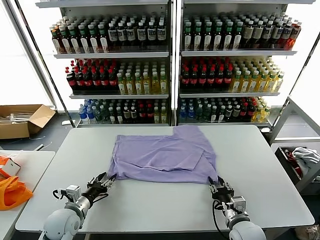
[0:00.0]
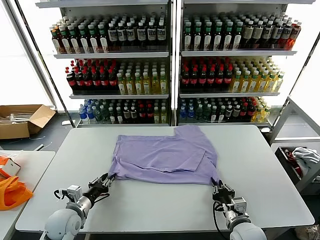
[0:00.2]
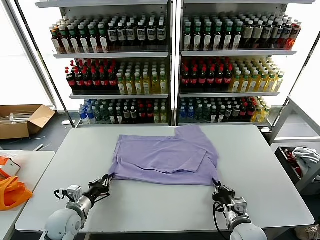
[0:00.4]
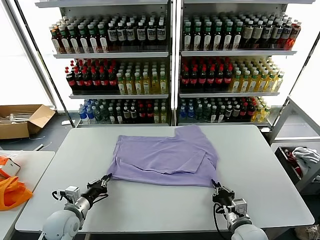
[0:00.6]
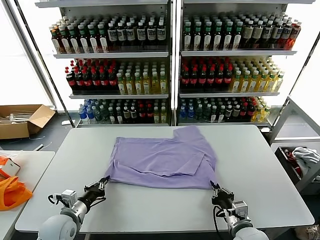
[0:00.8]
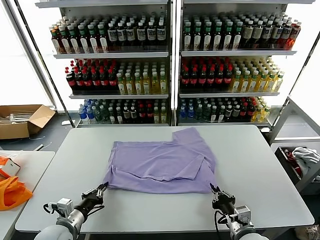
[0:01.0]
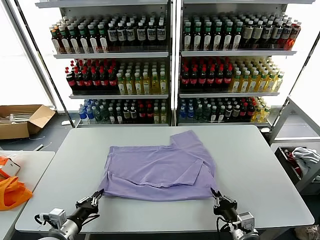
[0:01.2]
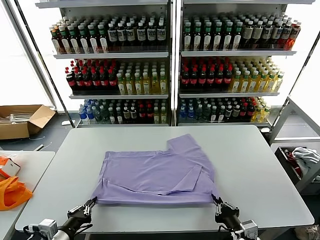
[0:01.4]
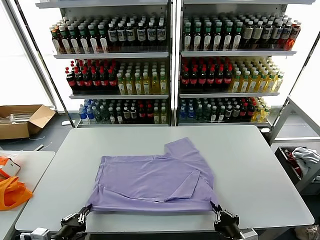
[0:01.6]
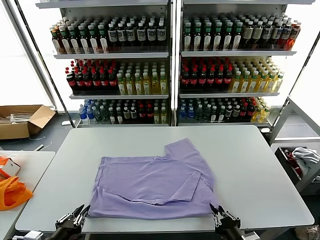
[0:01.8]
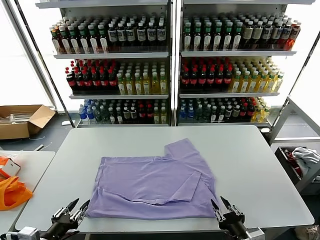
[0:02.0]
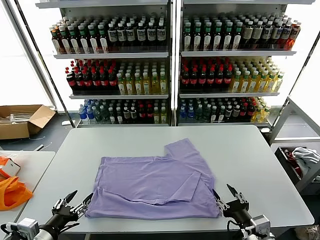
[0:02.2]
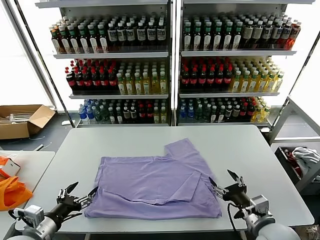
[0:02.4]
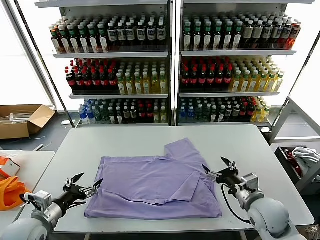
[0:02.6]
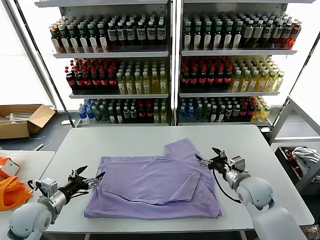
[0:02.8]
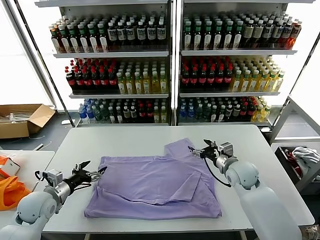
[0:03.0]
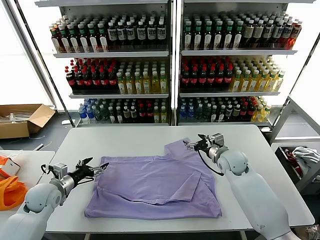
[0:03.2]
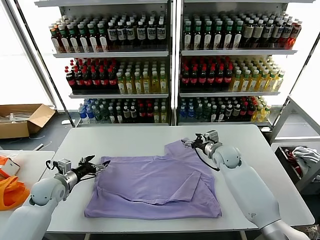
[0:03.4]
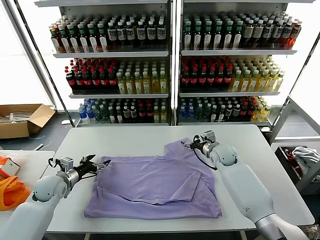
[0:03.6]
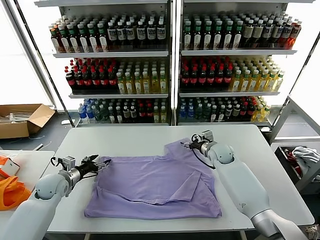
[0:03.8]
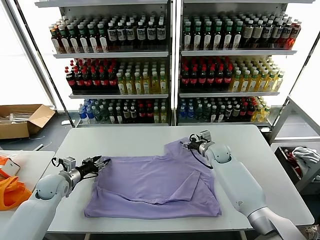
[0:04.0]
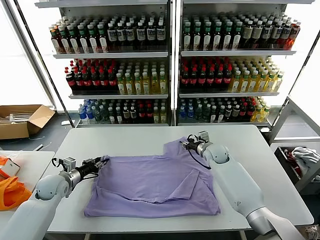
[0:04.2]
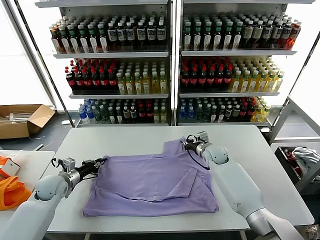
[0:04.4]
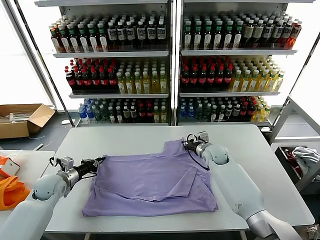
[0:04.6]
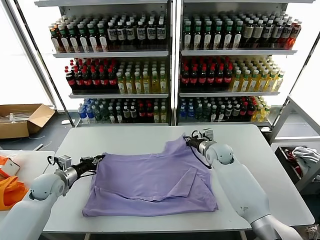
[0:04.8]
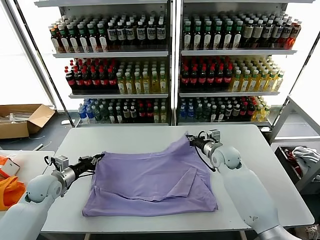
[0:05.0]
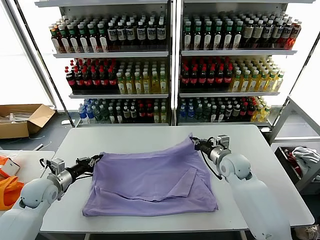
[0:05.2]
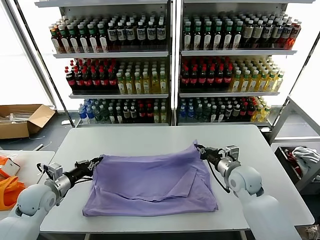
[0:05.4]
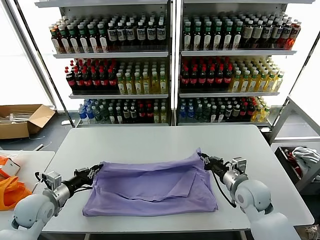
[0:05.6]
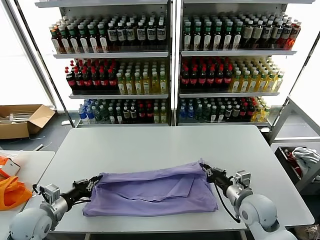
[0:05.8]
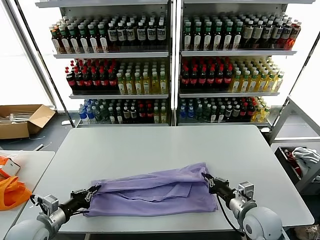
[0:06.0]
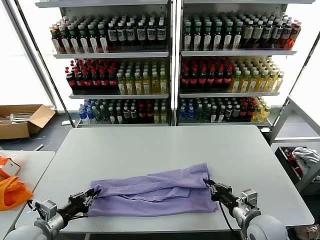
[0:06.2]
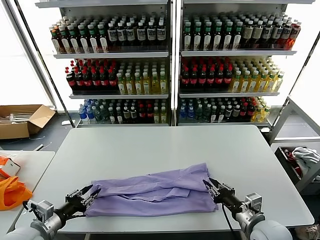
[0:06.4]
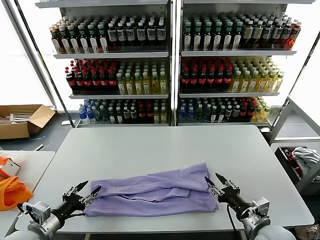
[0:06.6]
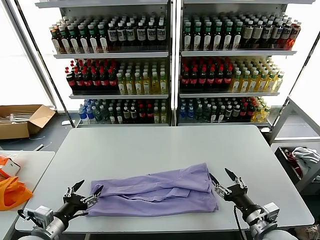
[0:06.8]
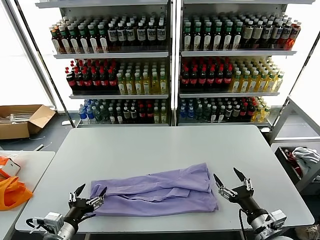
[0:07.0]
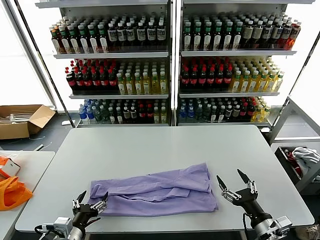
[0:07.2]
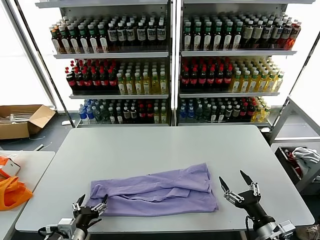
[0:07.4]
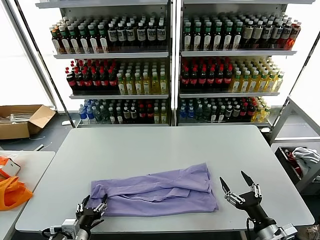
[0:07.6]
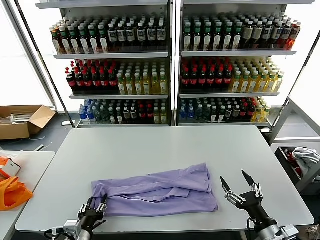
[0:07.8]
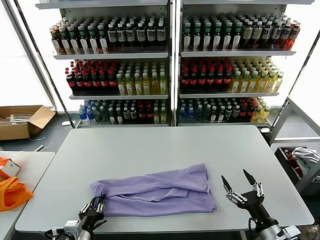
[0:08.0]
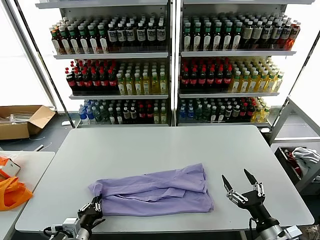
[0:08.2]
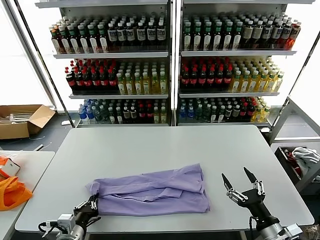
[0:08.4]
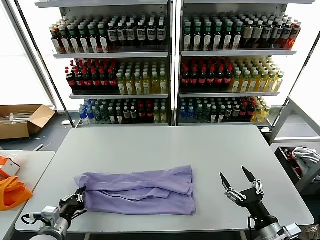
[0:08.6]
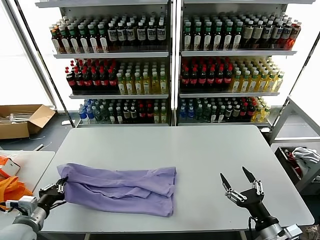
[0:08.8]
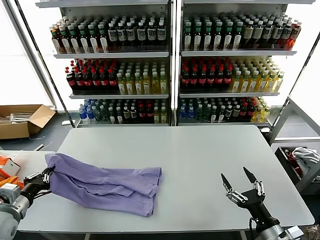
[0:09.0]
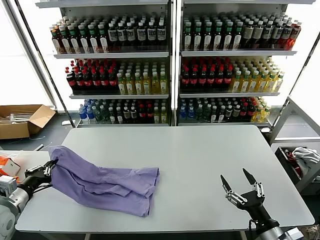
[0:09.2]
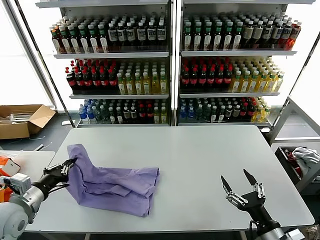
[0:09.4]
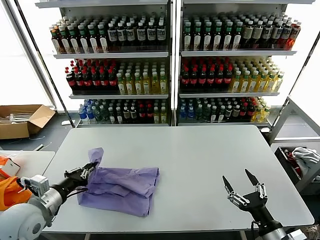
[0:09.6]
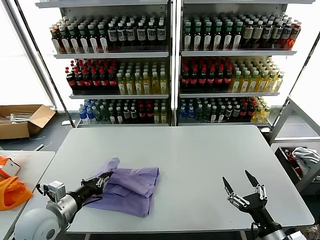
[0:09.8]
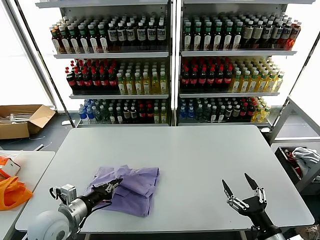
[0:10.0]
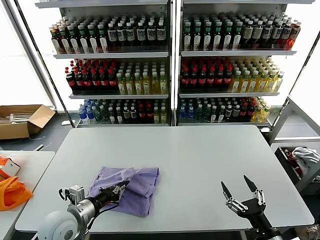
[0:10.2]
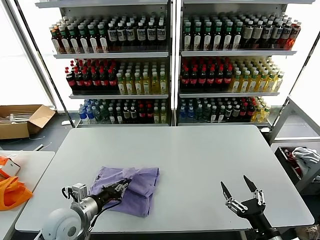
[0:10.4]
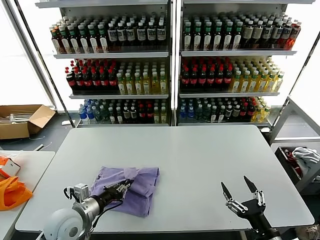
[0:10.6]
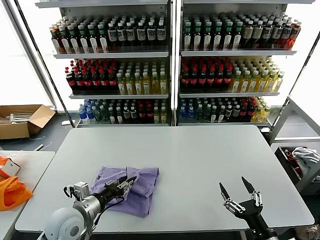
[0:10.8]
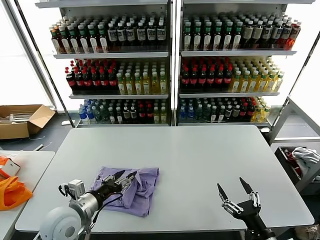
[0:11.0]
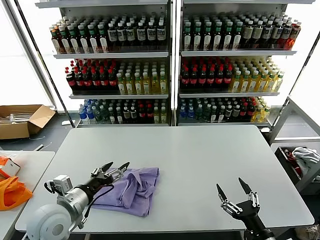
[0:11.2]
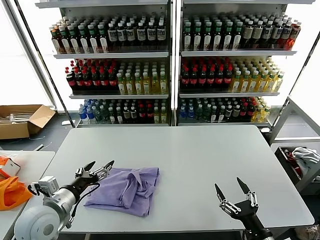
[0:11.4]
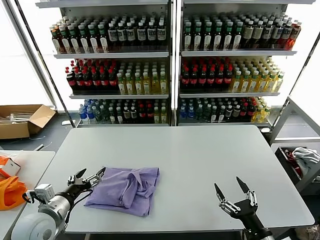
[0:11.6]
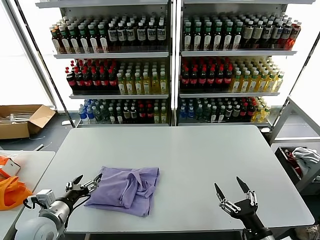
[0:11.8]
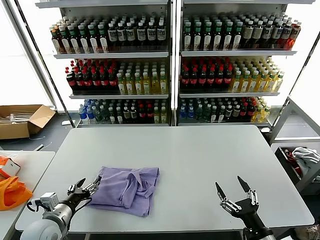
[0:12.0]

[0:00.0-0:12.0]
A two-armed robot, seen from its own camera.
Task of the whole recording: fold and organize the clothes.
Step, 0:00.0 to 0:02.0: Drag the clothes downward with both gripper.
Step, 0:02.2 to 0:04.4: use both grippers simultaneously to clamp the upper edge of the clothing fabric.
Step, 0:04.6 to 0:06.4: use both grippers to drag the upper edge of the fabric backward and fold it over the lower edge.
Step, 0:06.6 to 0:08.2: use the left gripper to clamp the left edge of the fabric.
Step, 0:08.4 to 0:11.0: use the left gripper to drag the left edge of the fabric to the left and folds it over the right edge.
0:00.0 to 0:01.6: The left gripper heads backward, covering about 15 cm, and closes up; the right gripper goes roughly 15 cm backward and upward.
0:01.6 to 0:03.0: The right gripper goes approximately 30 cm forward, and opens its fingers. Meanwhile the left gripper goes approximately 20 cm forward, and opens its fingers.
0:03.0 to 0:04.4: Both grippers travel together forward, some 10 cm. The left gripper closes up. Meanwhile the right gripper closes up.
0:04.4 to 0:06.0: The left gripper travels backward by roughly 15 cm, while the right gripper shifts roughly 30 cm backward.
0:06.0 to 0:07.6: The left gripper heads to the right and backward, covering approximately 15 cm, and opens, while the right gripper is displaced backward by about 10 cm, and opens up.
0:07.6 to 0:09.0: The left gripper heads to the left and upward, covering about 20 cm, and closes its fingers.
0:09.0 to 0:10.4: The left gripper is displaced to the right by some 15 cm.
0:10.4 to 0:12.0: The left gripper goes roughly 5 cm to the left, goes upward and returns, roughly 5 cm each way, and opens its fingers.

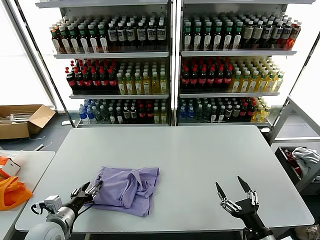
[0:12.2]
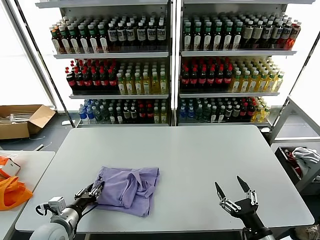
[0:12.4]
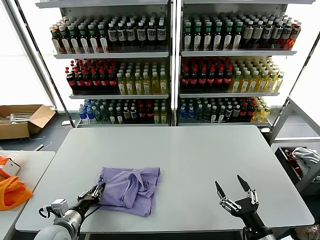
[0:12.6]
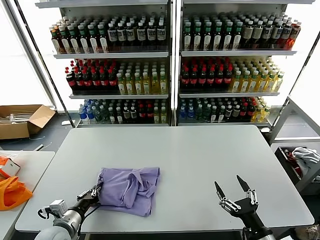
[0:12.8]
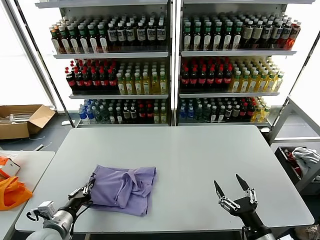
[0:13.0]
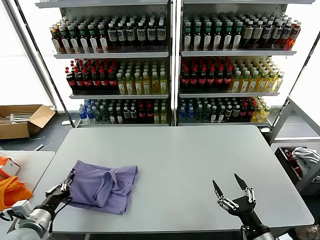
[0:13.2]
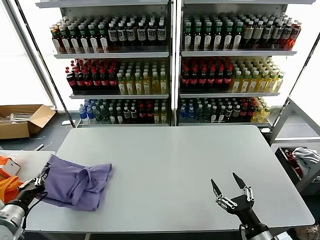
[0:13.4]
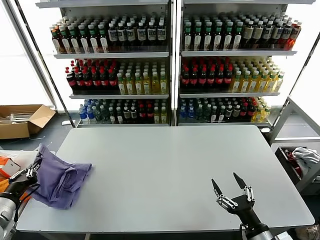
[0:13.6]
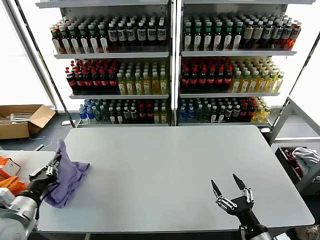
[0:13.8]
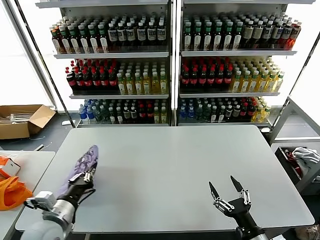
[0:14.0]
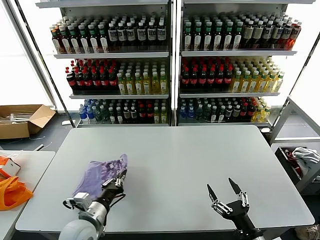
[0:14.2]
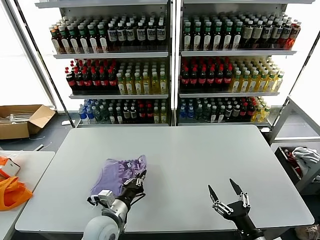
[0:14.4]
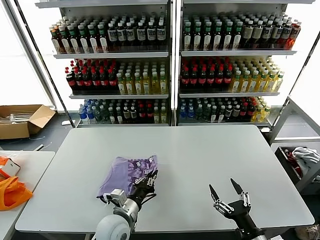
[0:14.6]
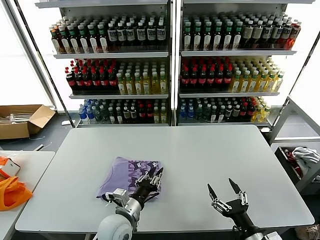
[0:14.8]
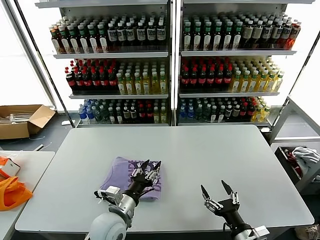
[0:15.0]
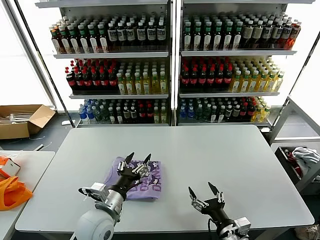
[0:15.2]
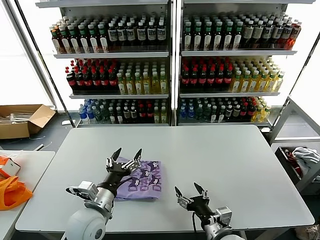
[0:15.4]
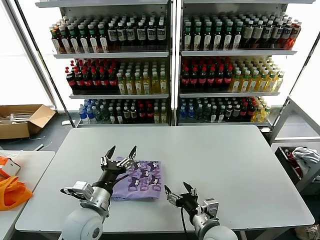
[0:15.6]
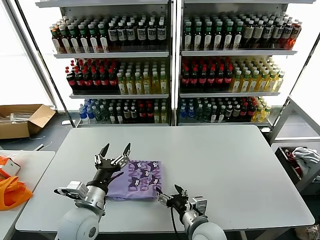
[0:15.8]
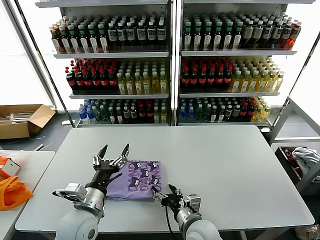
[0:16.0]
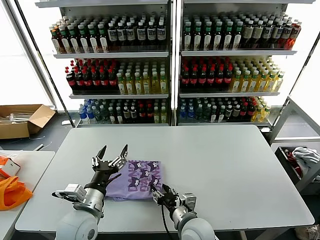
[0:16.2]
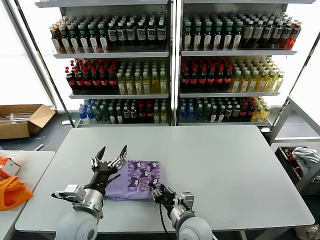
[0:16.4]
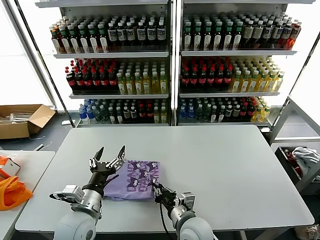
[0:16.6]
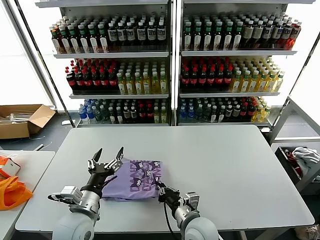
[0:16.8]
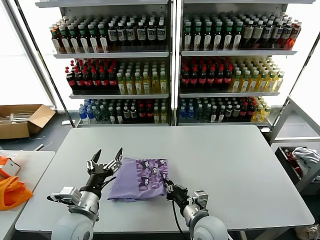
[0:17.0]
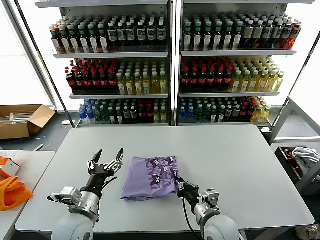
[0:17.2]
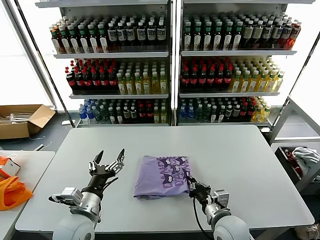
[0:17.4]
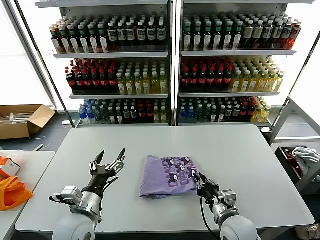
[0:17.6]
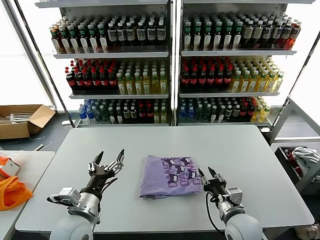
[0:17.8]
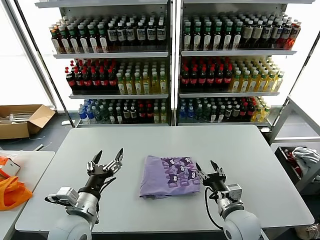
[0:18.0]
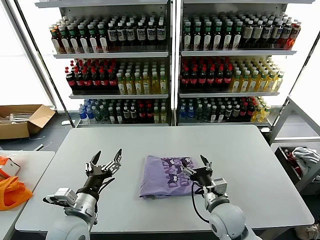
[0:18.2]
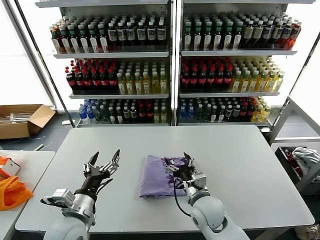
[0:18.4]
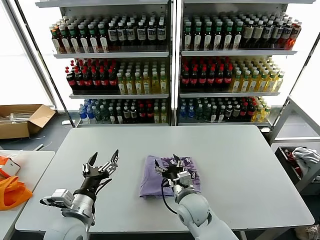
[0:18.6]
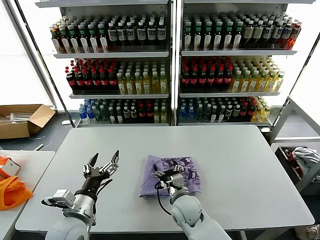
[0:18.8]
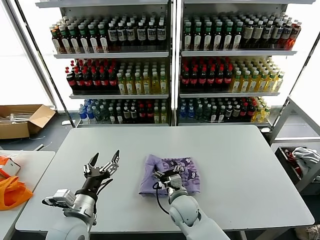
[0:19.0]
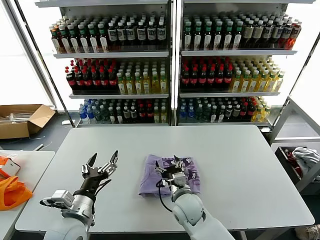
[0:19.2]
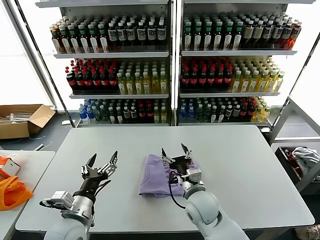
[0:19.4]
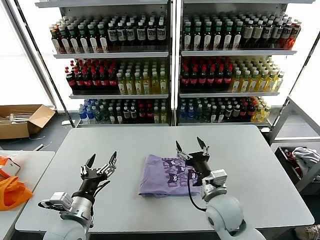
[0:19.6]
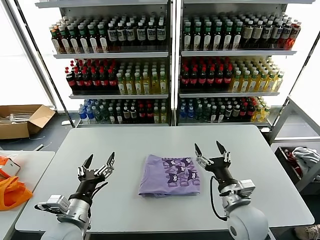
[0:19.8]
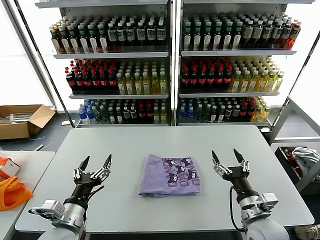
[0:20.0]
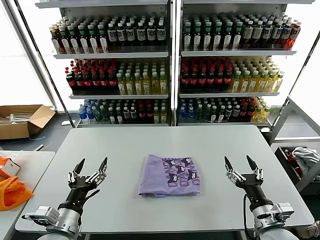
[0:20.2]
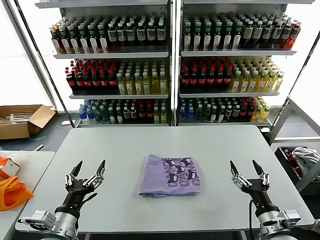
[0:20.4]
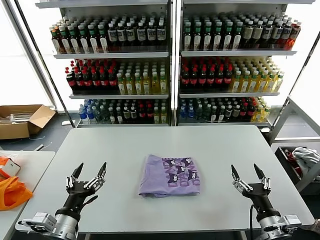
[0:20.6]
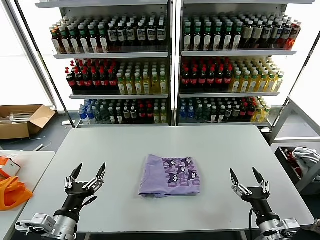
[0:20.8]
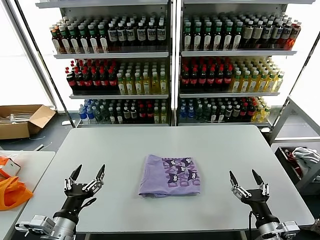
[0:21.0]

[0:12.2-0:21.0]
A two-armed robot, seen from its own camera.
Task of the whole recording: fold and organize the clothes.
Step, 0:12.2 to 0:14.8: Flip the folded clothes over with left gripper.
Step, 0:15.0 to 0:19.2: Drag the clothes to the center of the table.
0:12.2 to 0:13.6: The left gripper is displaced to the left and upward by some 15 cm, and closes up.
0:13.6 to 0:15.2: The left gripper travels to the right by approximately 30 cm, and opens up. Meanwhile the right gripper shifts approximately 5 cm to the left.
0:15.2 to 0:16.6: The left gripper travels to the left by about 5 cm. The right gripper goes approximately 15 cm to the left and forward, and closes its fingers.
0:16.6 to 0:18.0: The right gripper goes about 15 cm to the right, and opens.
0:18.0 to 0:19.6: The right gripper shifts about 5 cm to the left.
0:19.6 to 0:21.0: The right gripper is displaced to the right and backward by about 20 cm; the left gripper heads backward, covering about 5 cm.
